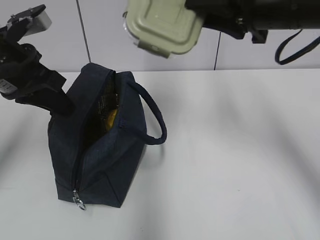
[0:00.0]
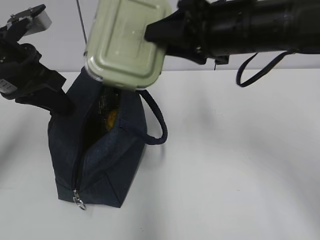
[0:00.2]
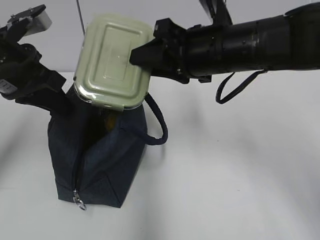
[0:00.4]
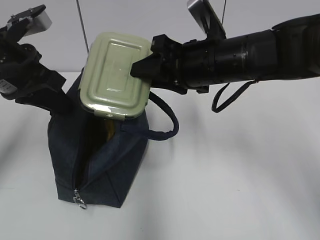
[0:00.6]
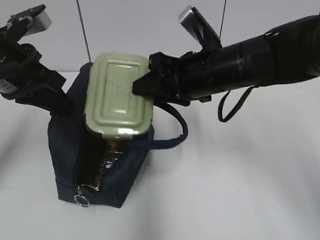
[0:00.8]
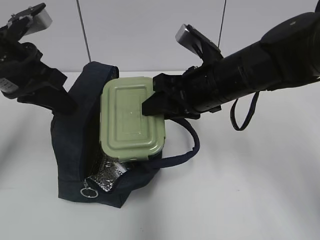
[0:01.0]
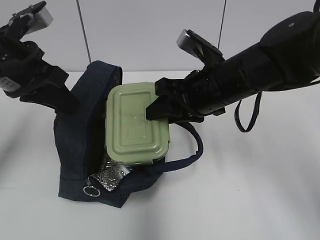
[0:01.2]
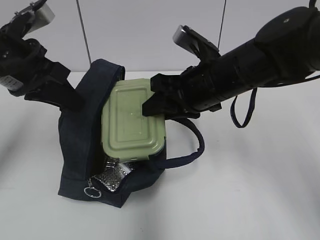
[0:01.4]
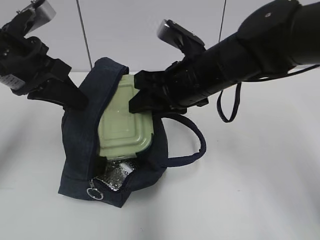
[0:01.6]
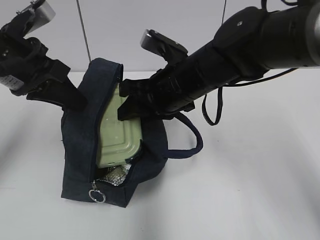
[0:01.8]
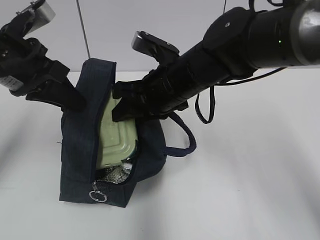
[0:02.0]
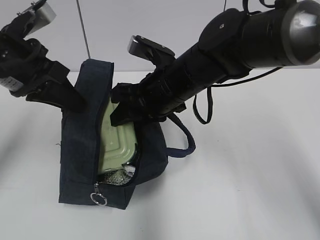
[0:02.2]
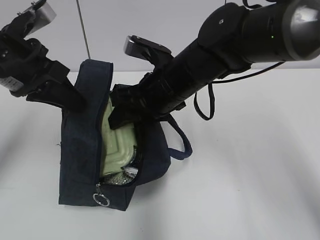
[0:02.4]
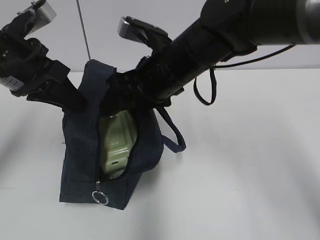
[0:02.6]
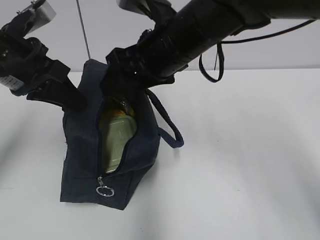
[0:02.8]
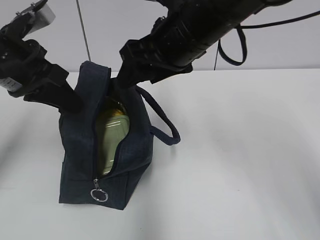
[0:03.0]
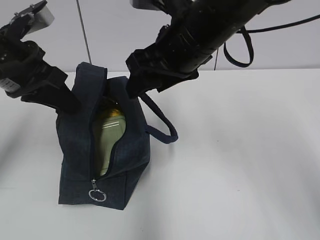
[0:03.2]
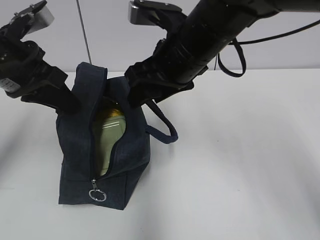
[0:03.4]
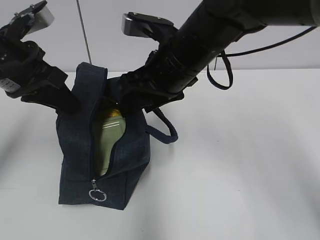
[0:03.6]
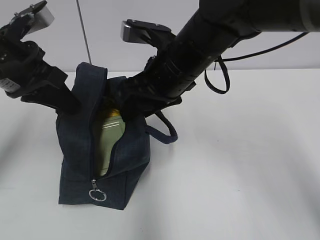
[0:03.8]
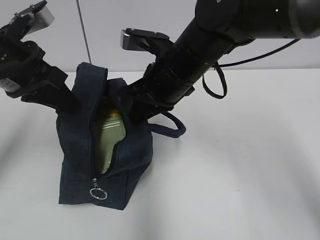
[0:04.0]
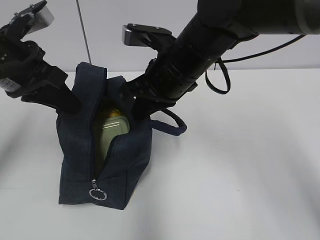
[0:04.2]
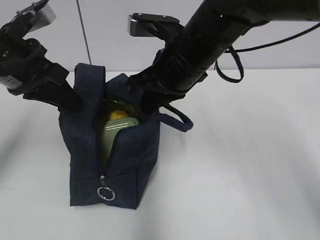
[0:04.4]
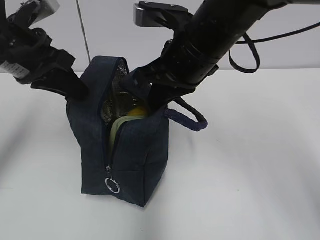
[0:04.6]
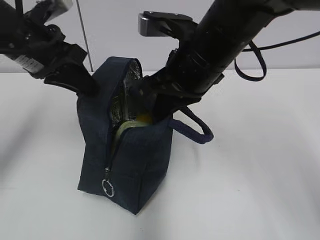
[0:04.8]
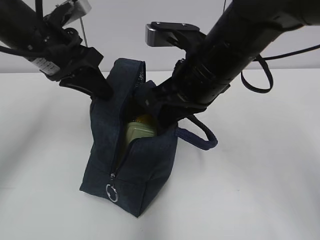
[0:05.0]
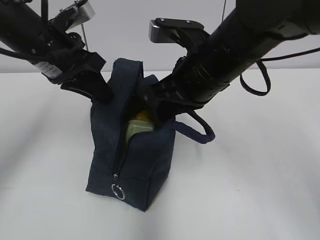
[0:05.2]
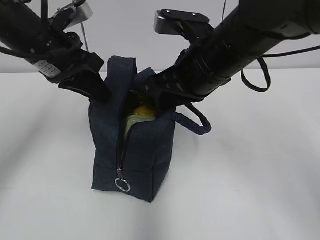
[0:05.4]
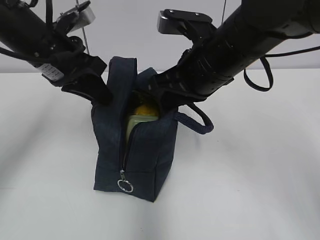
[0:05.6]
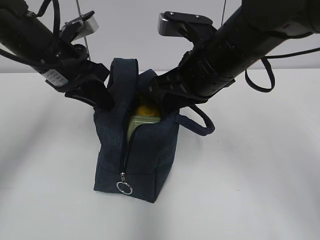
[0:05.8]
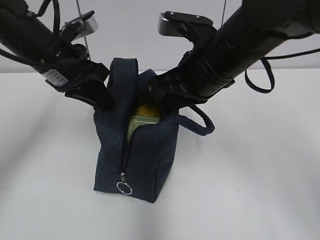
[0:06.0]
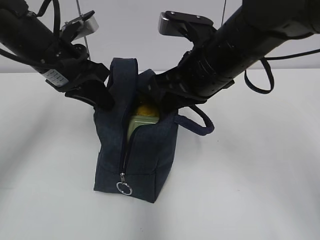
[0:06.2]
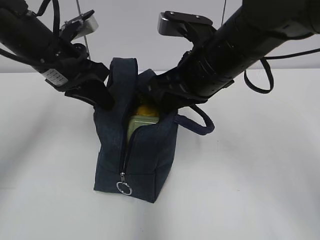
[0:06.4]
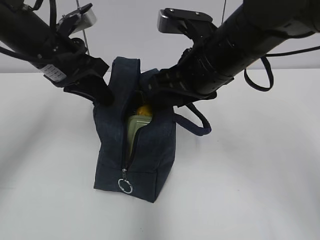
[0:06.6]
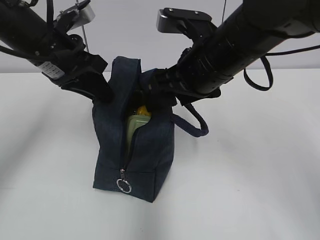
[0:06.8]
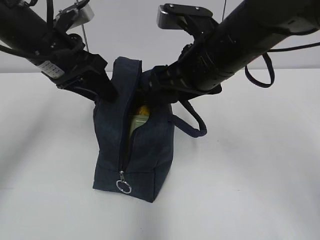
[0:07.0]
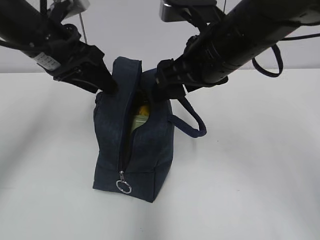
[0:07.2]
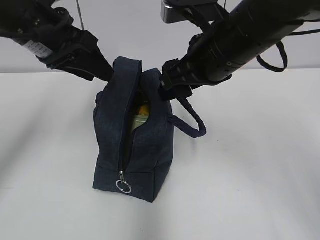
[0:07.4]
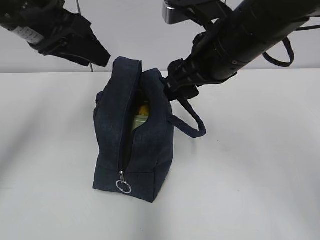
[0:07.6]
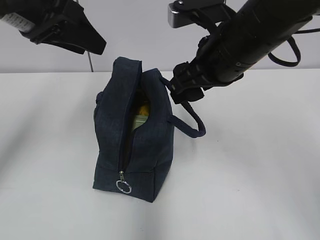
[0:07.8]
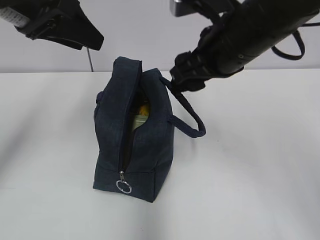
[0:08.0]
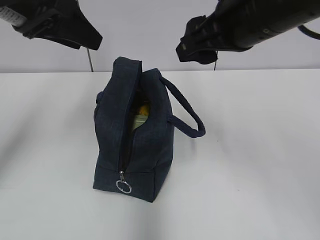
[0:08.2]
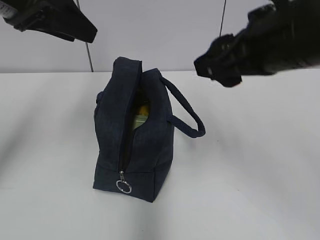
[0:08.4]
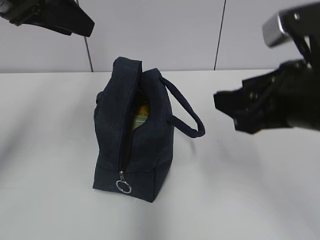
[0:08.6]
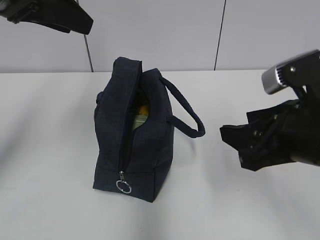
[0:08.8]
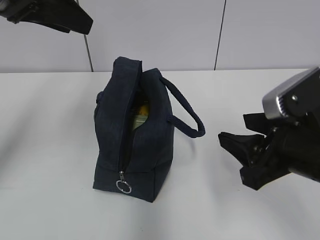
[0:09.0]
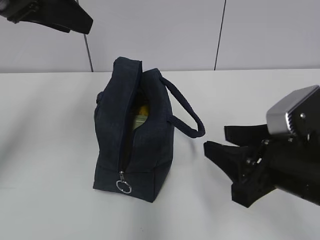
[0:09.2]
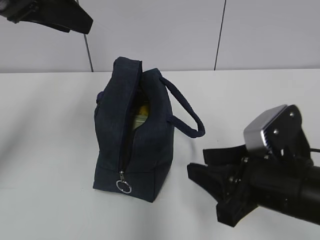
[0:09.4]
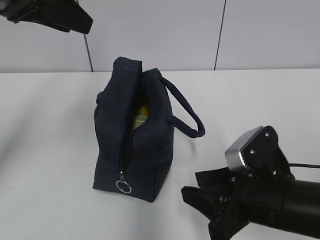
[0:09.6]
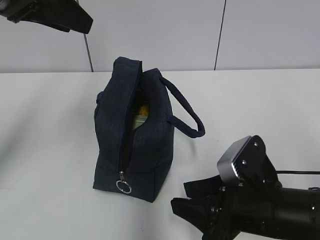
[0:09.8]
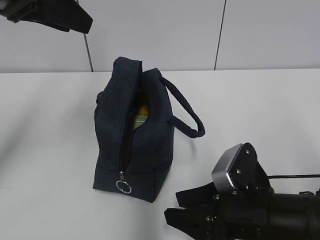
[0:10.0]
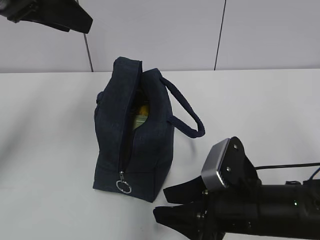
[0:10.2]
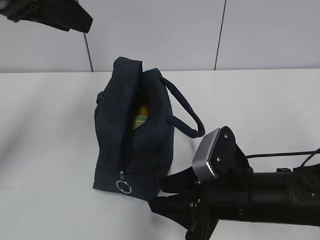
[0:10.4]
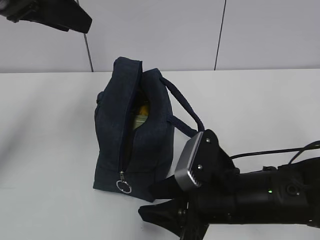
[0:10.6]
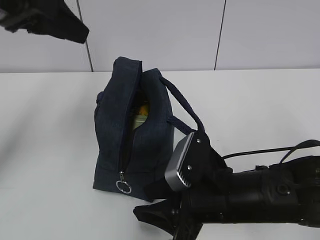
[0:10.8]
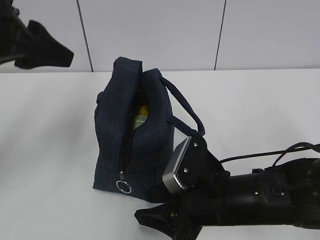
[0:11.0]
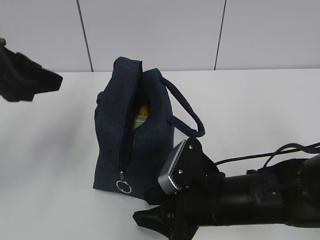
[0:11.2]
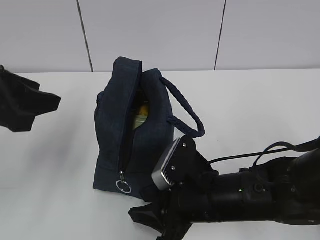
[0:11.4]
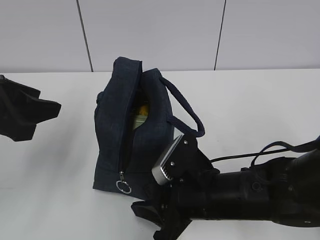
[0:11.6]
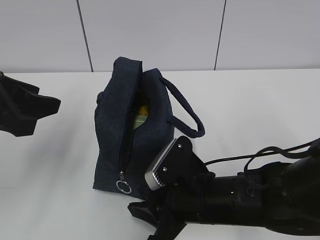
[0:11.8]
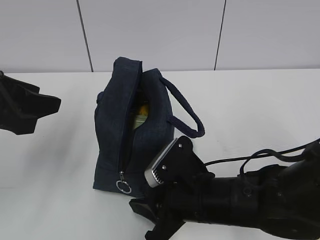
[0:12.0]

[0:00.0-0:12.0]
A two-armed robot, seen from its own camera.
Step, 0:02.8 to 0:04.0: Grab the lunch bag with your right hand.
Step, 0:04.2 to 0:07.0: Move the lunch bag to the right.
0:00.0 to 0:01.6: The right gripper is displaced to the left and downward by roughly 15 cm.
0:01.6 to 0:03.0: The right gripper travels upward by about 5 cm, and opens.
0:03.0 to 0:04.4: The right gripper closes its fingers.
0:04.4 to 0:06.0: The left gripper shifts by some 5 cm.
0:06.0 to 0:07.6: The right gripper opens up. The left gripper is displaced upward by approximately 10 cm, and opens.
0:07.6 to 0:09.0: The right gripper moves backward, to the right and downward, approximately 15 cm; the left gripper shifts by about 5 cm.
0:09.0 to 0:10.4: The right gripper moves downward and to the left, approximately 10 cm.
0:10.4 to 0:12.0: The right gripper changes place by roughly 5 cm; the left gripper travels downward and backward by approximately 15 cm.

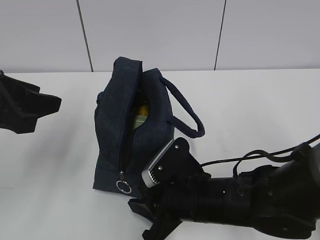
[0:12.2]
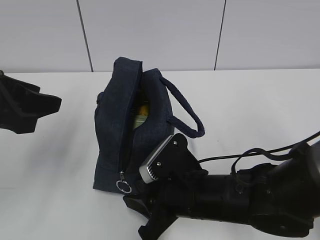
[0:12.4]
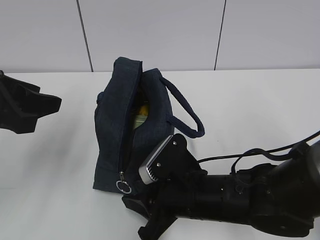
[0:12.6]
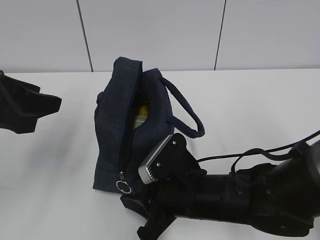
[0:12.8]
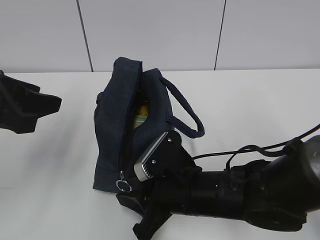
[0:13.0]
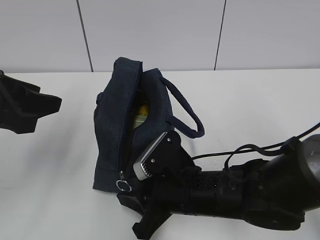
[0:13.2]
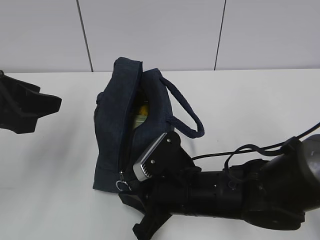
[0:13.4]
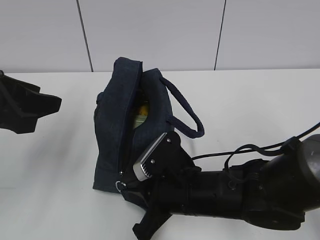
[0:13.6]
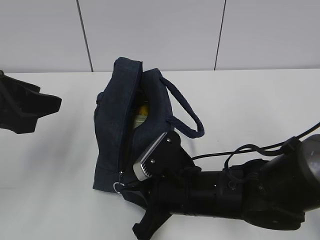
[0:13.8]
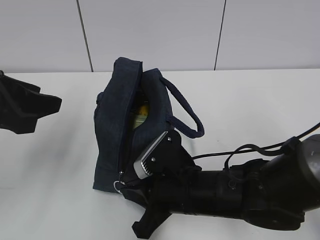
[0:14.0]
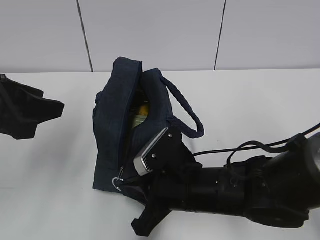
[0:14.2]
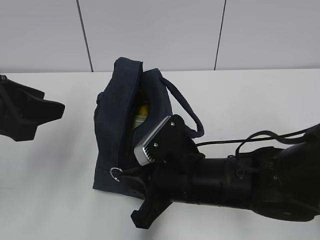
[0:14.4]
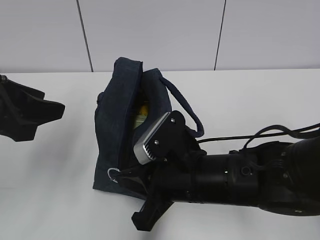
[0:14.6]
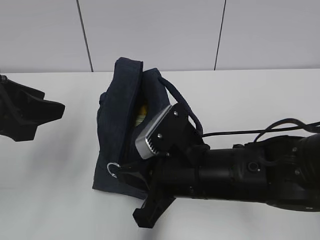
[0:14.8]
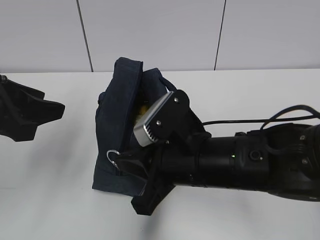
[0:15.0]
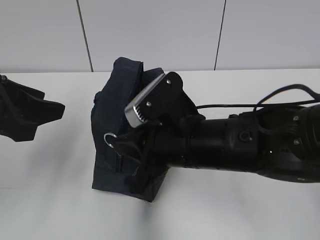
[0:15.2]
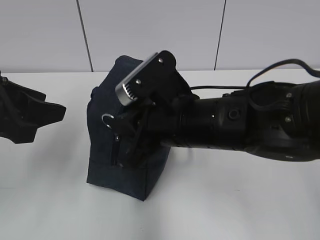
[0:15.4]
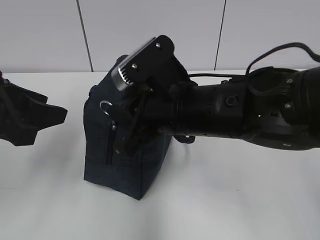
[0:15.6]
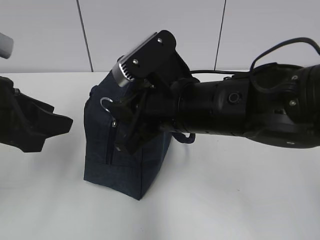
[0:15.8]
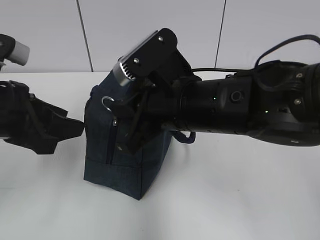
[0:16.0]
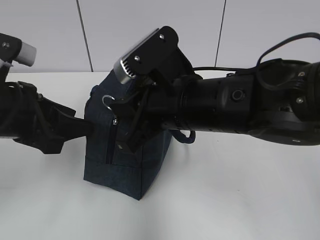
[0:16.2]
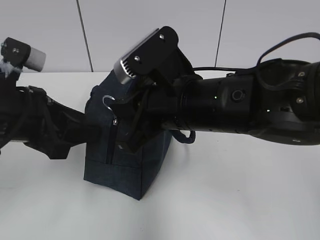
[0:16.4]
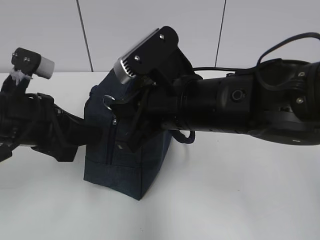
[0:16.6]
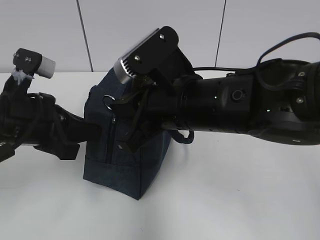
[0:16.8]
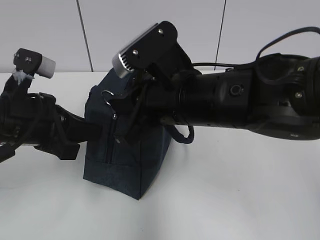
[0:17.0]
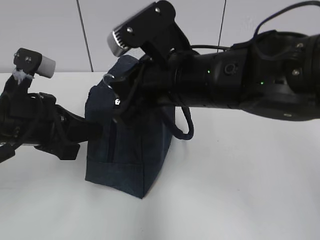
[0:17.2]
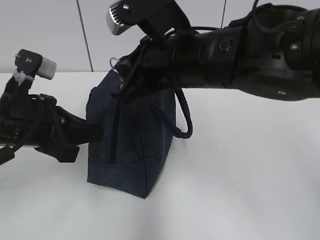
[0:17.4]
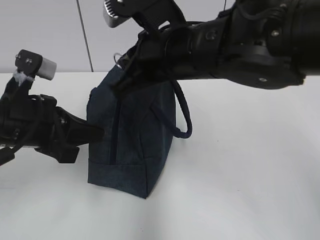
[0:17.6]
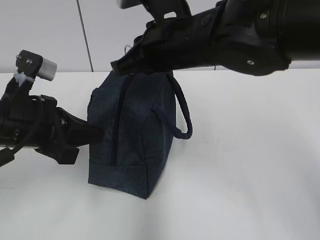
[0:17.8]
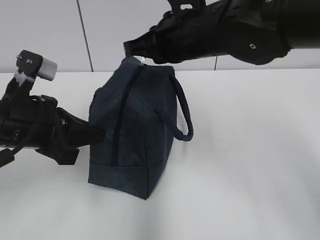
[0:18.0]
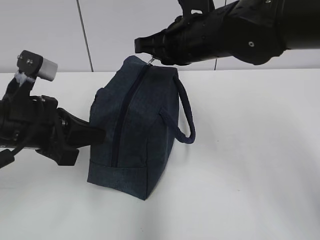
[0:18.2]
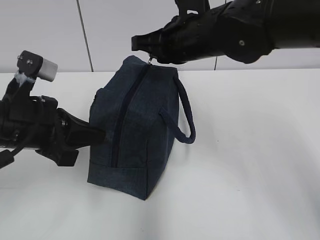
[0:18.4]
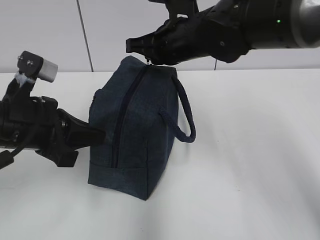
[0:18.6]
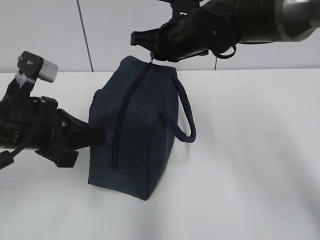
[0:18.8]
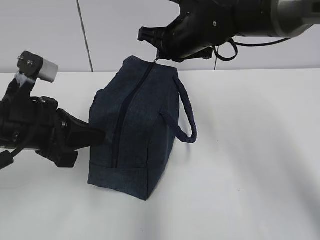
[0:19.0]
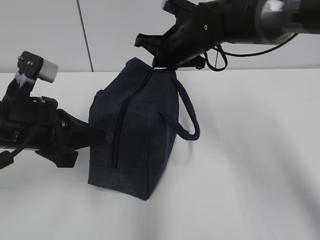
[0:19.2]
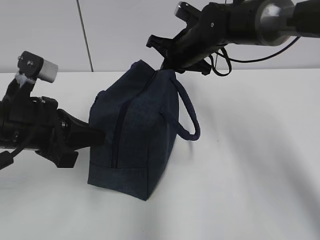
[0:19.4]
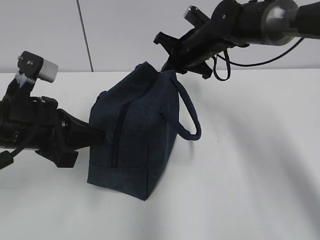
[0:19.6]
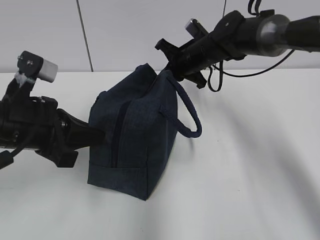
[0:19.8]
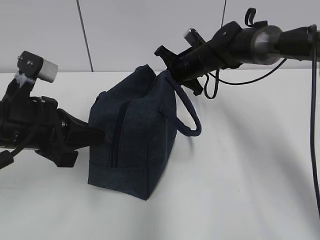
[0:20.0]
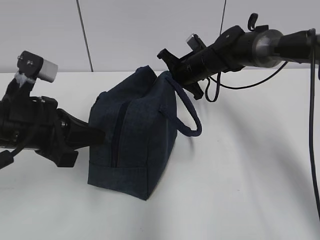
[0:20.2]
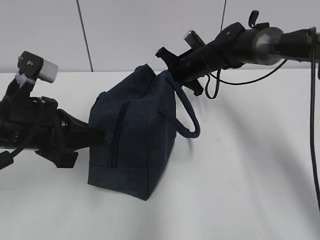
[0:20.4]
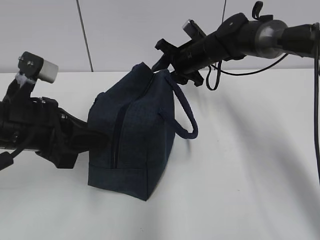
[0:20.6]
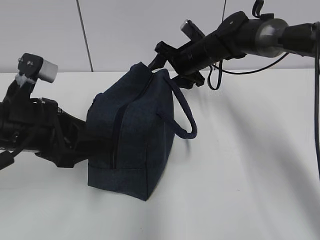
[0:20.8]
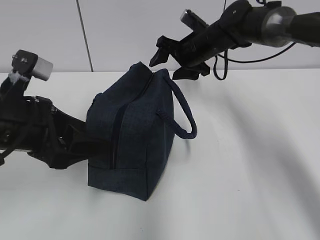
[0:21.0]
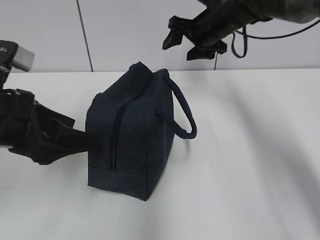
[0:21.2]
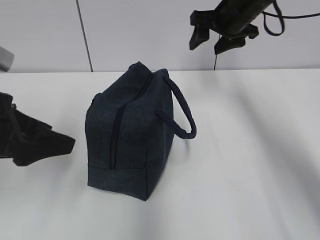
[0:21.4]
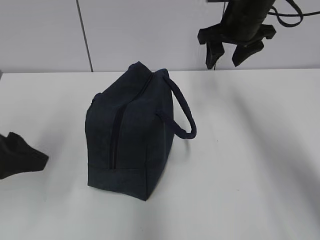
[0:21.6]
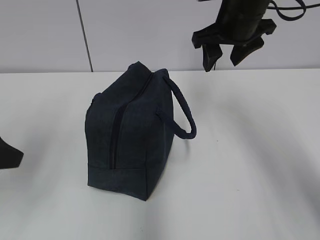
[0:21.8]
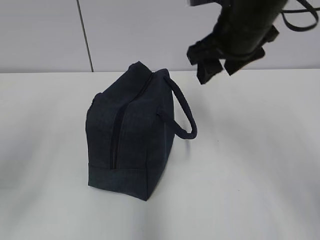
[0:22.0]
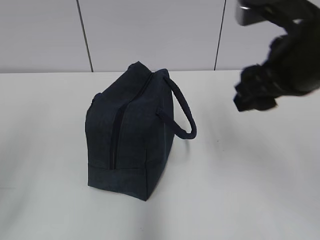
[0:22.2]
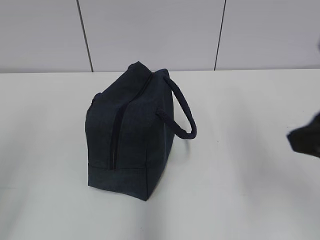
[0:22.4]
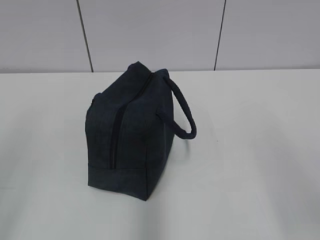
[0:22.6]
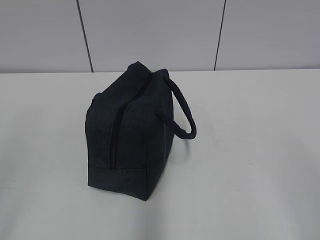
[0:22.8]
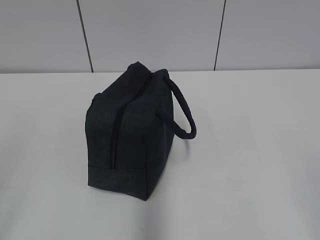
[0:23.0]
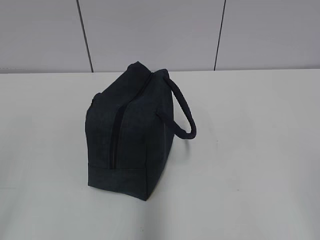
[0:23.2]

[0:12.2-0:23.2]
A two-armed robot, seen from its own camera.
Step, 0:12.2 to 0:20.4: Pull the zipper with your right hand.
0:12.2 to 0:13.8: The right gripper closes its fingers.
0:13.8 to 0:15.4: The right gripper is displaced upward by roughly 10 cm.
0:15.4 to 0:17.0: The left gripper travels downward by about 5 cm, and closes up.
0:17.0 to 0:18.4: The right gripper goes roughly 10 cm forward.
0:18.4 to 0:20.0: The right gripper travels forward and downward by roughly 20 cm.
0:20.0 to 0:21.6: The right gripper goes some 15 cm upward, backward and to the right, and opens its fingers. The left gripper is displaced to the left by roughly 5 cm, and opens.
0:21.6 to 0:23.2: The right gripper travels backward by about 40 cm. The left gripper shifts approximately 20 cm backward.
